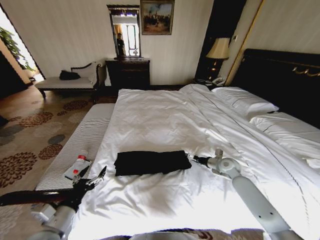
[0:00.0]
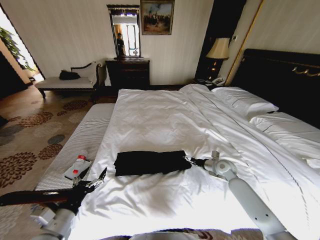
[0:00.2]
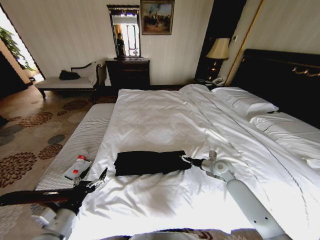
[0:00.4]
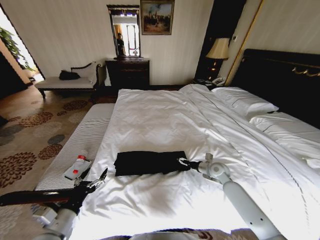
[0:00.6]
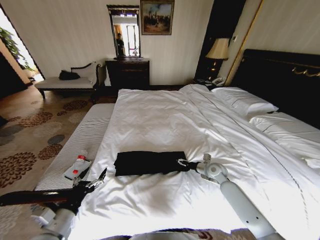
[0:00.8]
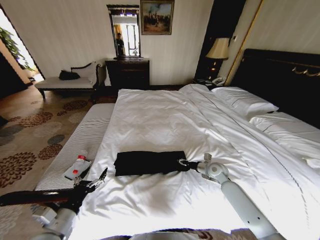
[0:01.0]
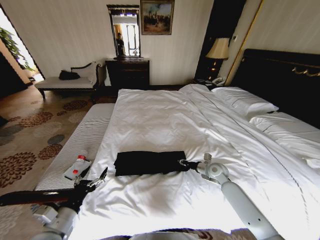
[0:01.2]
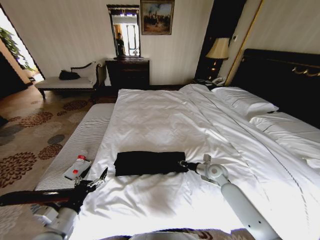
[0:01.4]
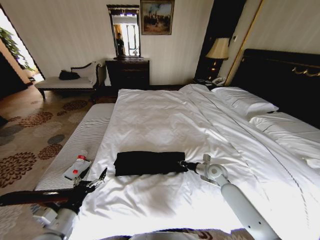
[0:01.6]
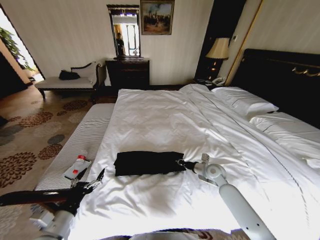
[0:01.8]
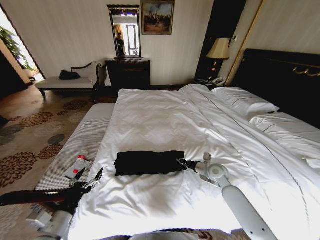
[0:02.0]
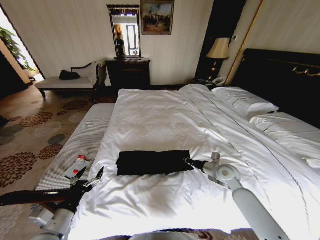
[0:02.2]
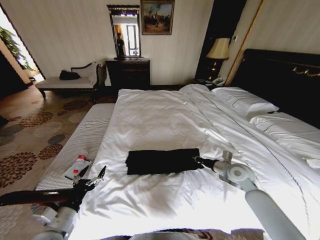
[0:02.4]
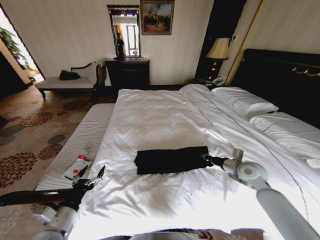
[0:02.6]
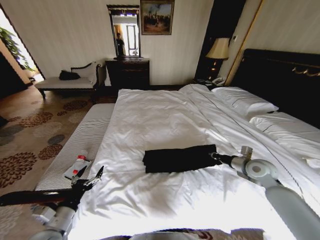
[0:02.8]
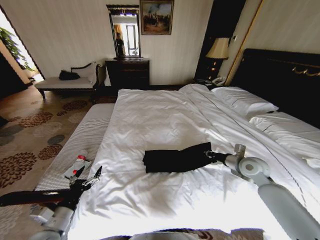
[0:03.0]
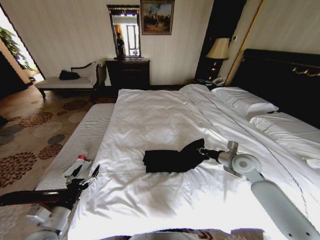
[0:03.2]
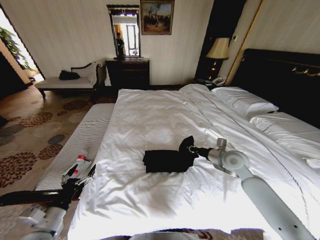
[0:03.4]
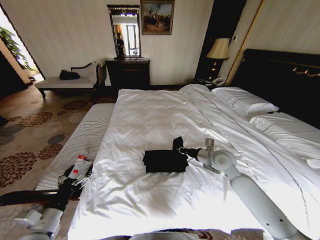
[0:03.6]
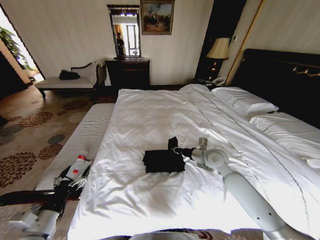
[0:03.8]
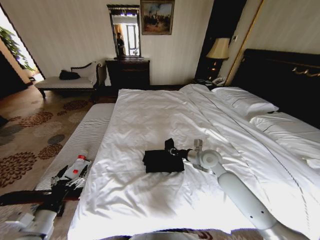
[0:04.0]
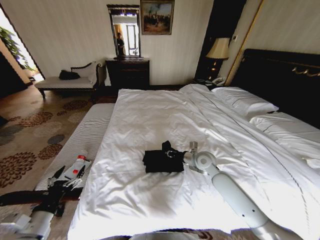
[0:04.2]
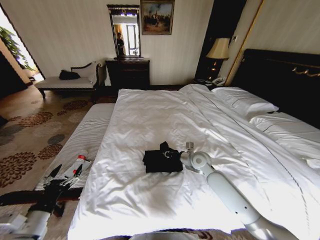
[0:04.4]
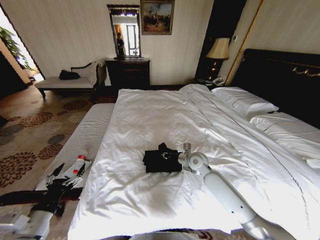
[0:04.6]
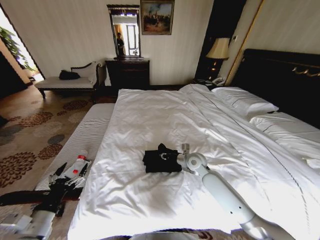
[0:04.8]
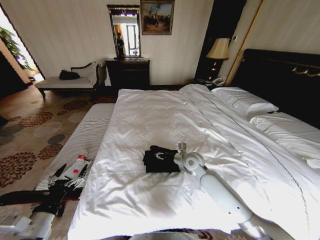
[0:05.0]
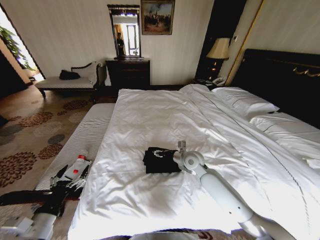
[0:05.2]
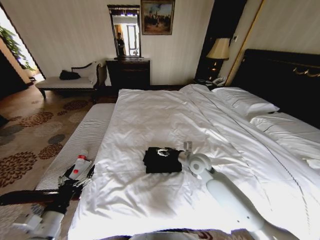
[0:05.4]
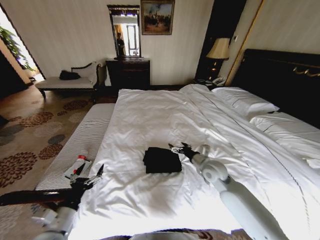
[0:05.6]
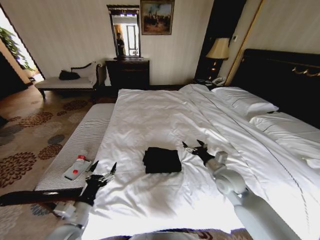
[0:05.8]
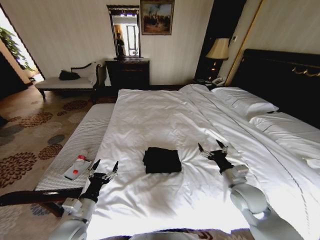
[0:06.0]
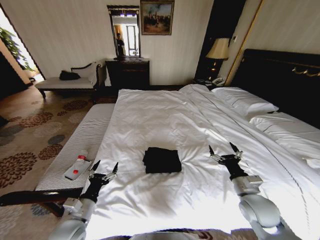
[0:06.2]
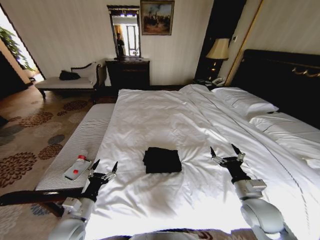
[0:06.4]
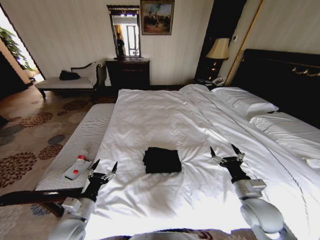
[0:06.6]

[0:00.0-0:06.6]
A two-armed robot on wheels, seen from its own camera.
Task of the whole recording: Fold the clothes on the bed.
0:00.0 to 0:01.6: The right gripper shifts some 5 cm to the left, and closes its fingers.
0:01.6 to 0:03.2: The right gripper is displaced upward and to the right by roughly 15 cm.
0:03.2 to 0:05.0: The right gripper moves to the left, some 20 cm.
0:05.0 to 0:06.6: The right gripper is displaced backward and to the right by roughly 25 cm, and opens up; the left gripper travels to the right and forward by roughly 10 cm.

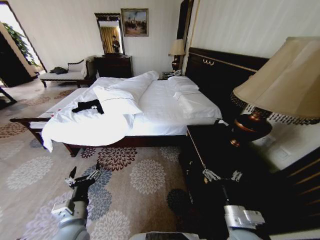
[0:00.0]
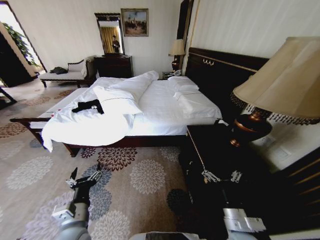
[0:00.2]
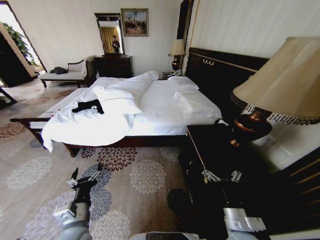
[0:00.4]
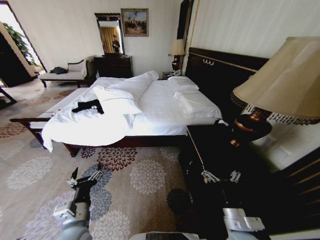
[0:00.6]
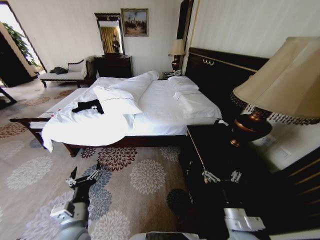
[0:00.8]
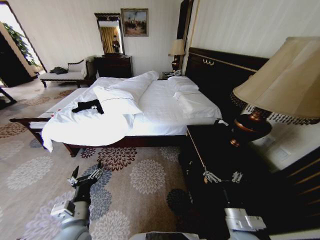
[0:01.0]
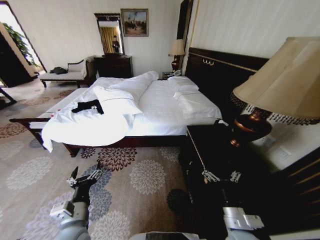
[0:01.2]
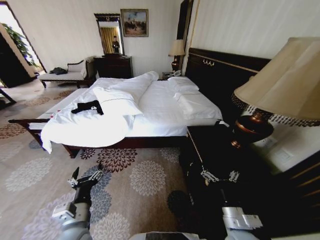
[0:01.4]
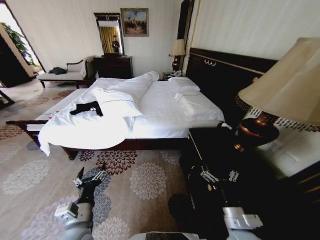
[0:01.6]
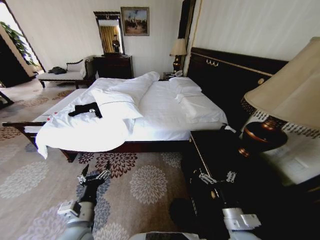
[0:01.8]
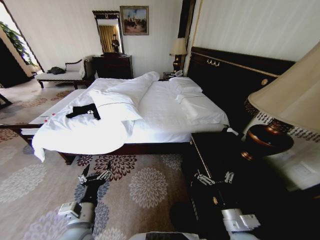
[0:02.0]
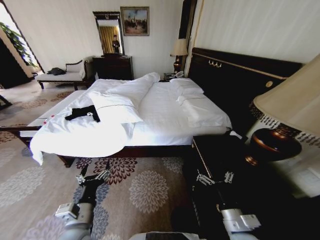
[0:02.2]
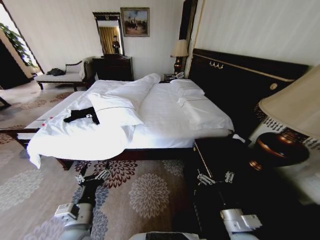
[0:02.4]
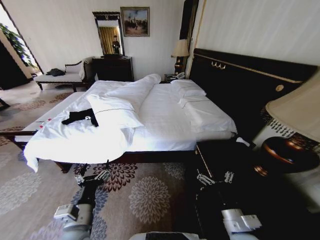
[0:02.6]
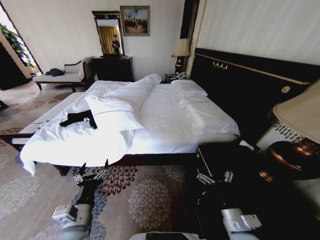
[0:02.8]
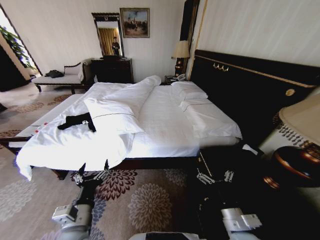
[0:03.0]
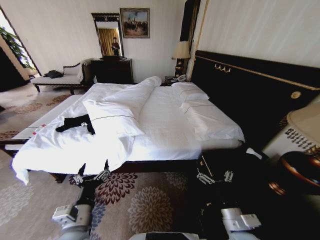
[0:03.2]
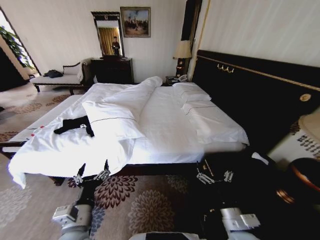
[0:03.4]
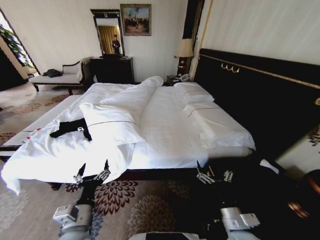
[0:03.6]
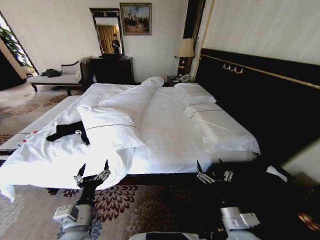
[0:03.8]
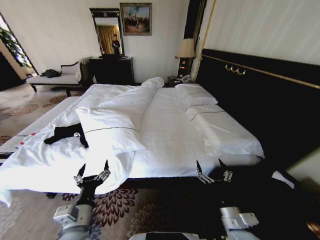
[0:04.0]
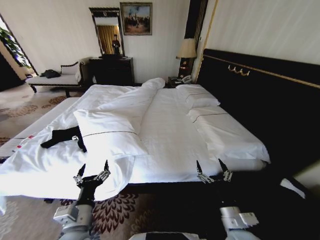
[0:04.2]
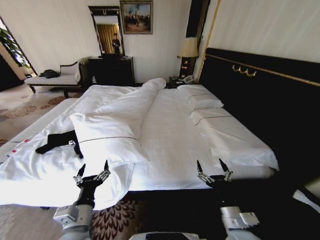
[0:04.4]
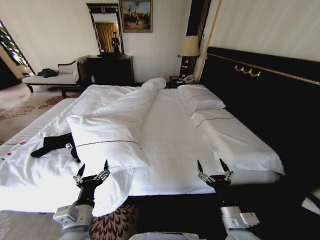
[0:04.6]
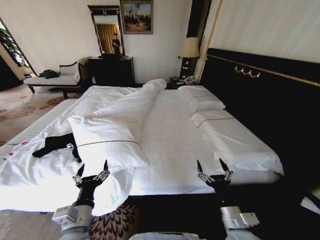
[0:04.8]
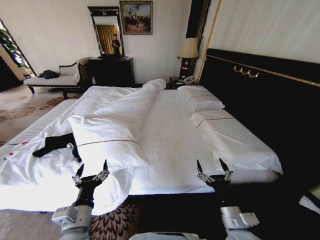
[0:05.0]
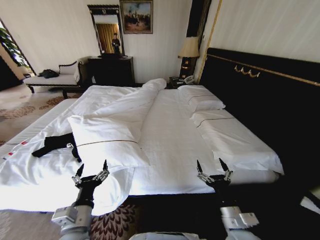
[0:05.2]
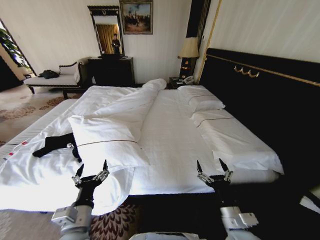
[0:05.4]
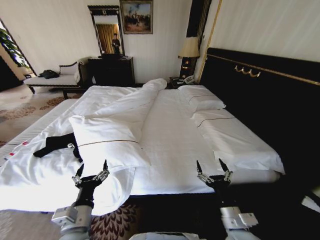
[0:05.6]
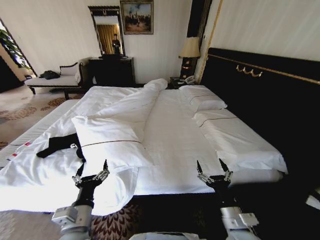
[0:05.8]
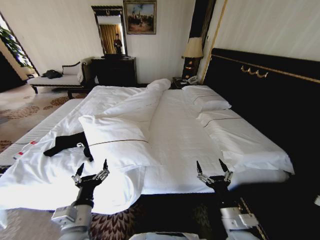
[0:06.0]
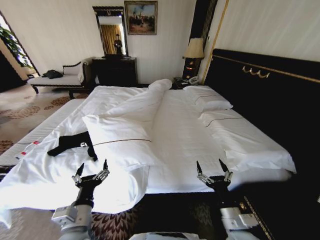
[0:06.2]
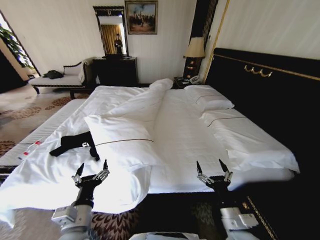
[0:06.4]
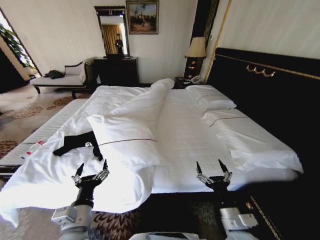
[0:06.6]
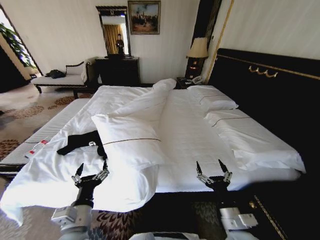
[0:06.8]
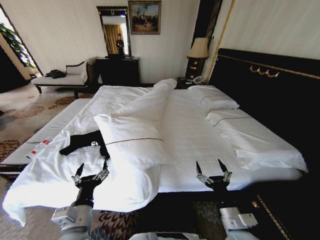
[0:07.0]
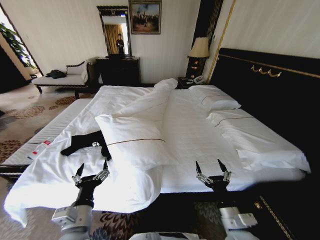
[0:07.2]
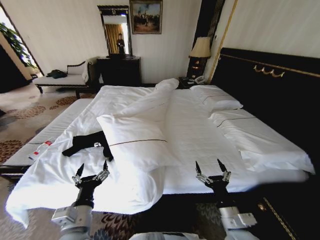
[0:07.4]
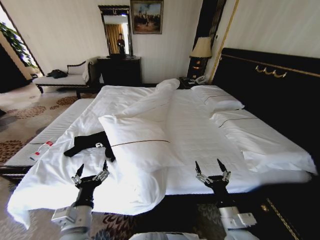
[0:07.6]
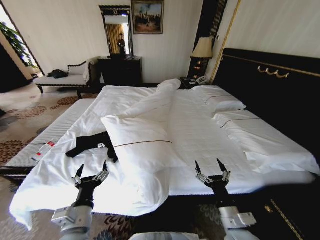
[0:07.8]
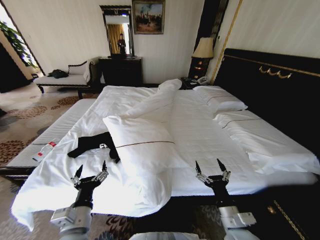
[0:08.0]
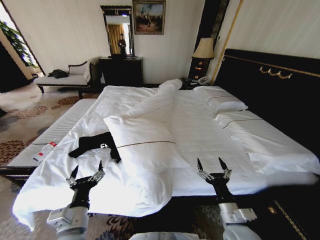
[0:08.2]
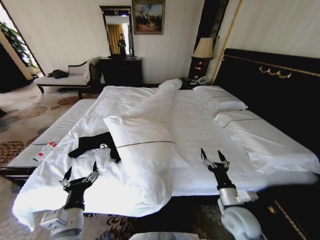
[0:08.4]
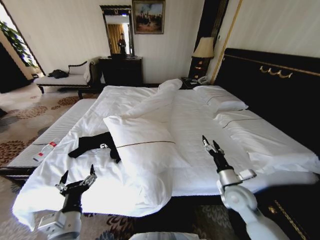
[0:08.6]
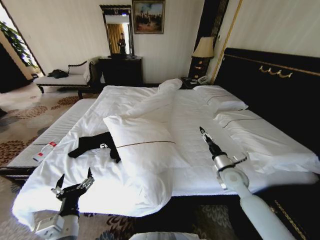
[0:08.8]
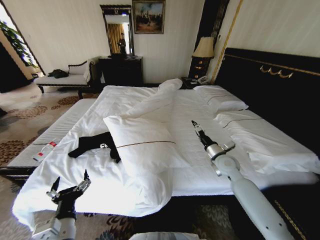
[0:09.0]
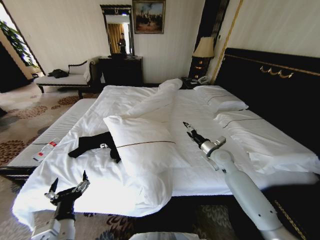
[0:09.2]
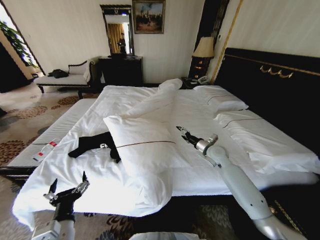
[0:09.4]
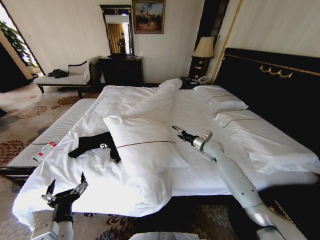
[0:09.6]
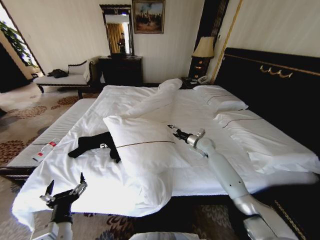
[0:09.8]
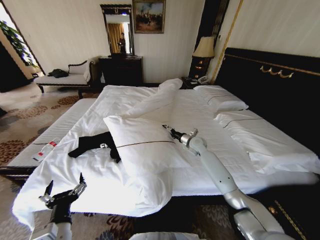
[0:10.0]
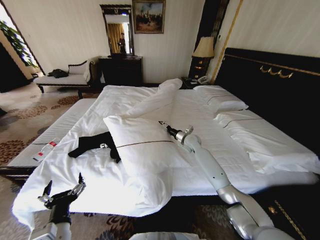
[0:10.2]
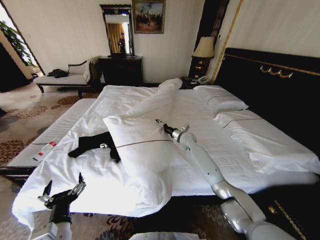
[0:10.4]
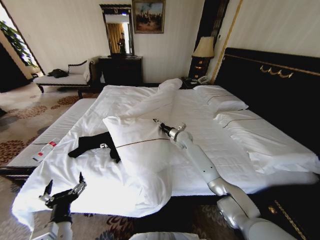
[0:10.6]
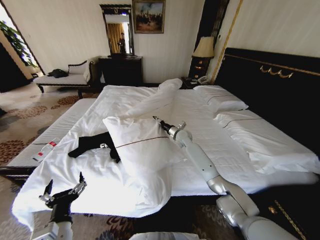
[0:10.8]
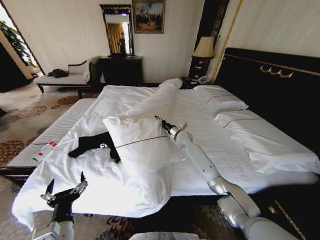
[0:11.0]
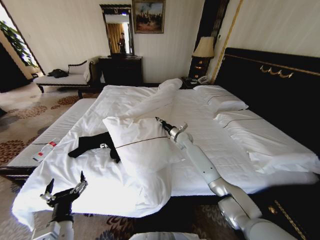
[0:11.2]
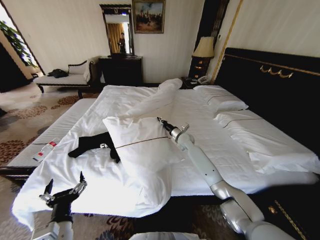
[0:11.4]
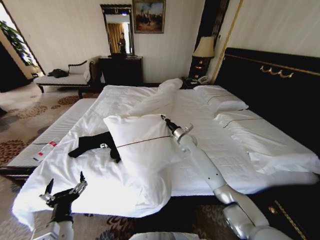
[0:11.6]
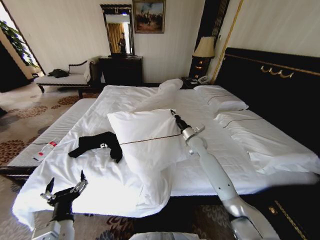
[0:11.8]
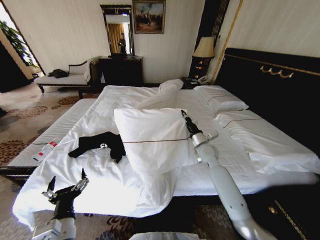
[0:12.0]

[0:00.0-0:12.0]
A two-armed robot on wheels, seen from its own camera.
Task of the whole recording: Fold the clothes on the bed.
0:07.6 to 0:09.0: The right gripper is displaced forward by roughly 25 cm.
0:09.0 to 0:10.4: The right gripper is displaced forward and to the left by about 20 cm.
0:10.4 to 0:12.0: The right gripper heads backward and to the right, covering approximately 15 cm, and closes its fingers.

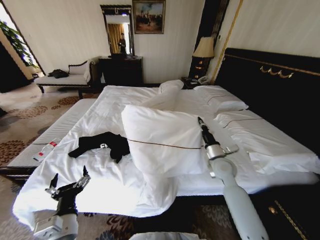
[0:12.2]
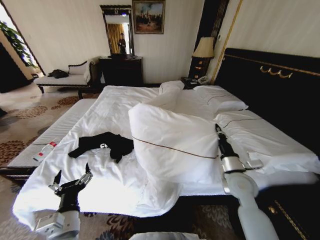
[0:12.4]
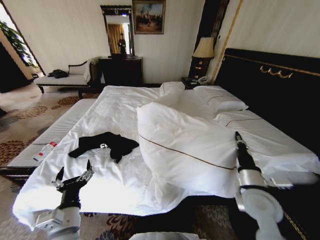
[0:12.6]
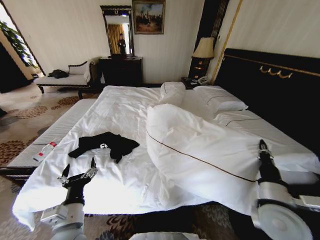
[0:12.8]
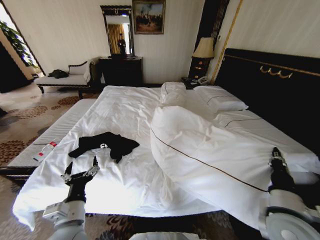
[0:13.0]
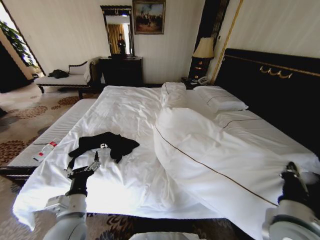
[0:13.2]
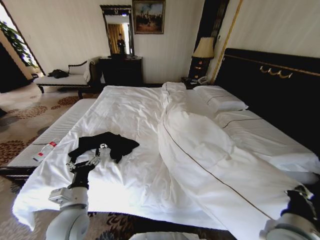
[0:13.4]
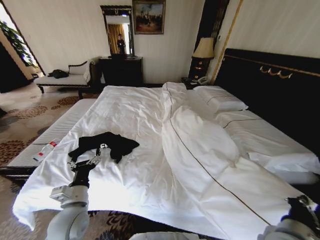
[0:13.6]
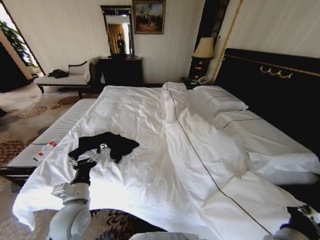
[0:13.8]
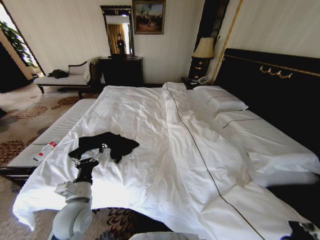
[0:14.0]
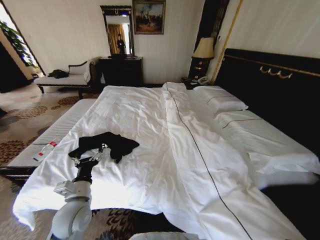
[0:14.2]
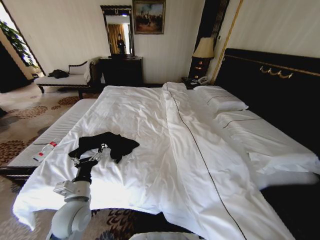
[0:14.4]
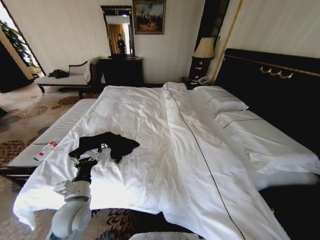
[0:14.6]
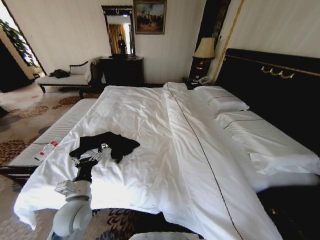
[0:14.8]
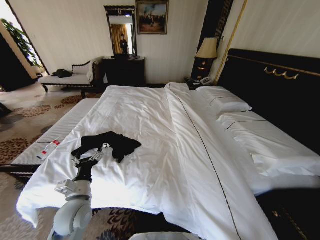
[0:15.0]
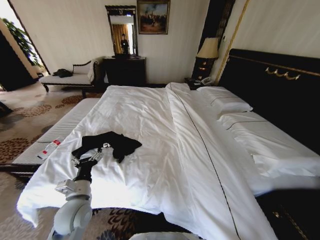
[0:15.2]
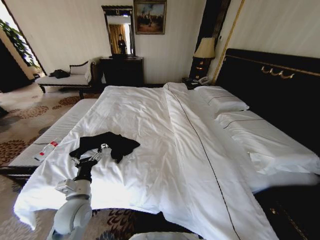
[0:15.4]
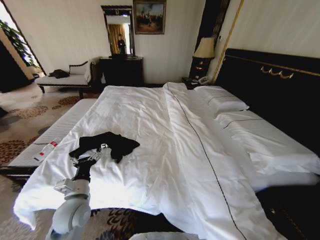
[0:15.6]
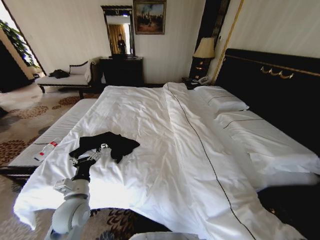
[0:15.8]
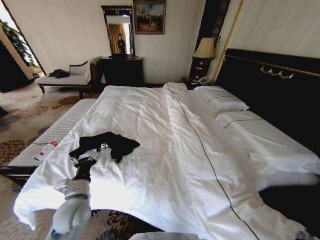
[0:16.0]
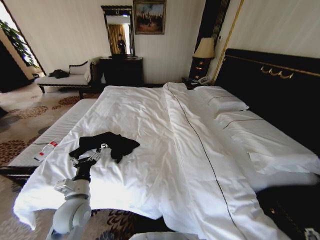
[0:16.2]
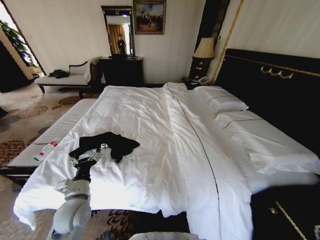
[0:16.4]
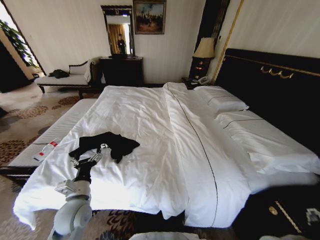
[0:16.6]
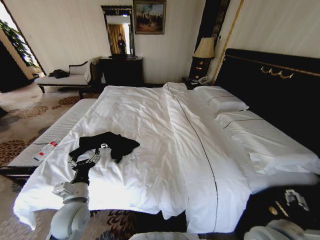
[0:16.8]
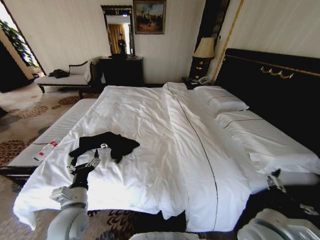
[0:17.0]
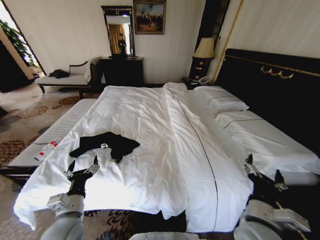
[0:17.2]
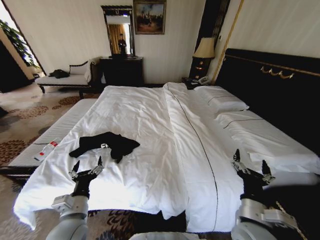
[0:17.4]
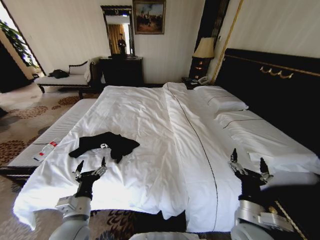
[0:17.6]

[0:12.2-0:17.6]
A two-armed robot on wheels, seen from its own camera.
Task of the whole recording: Fold the clothes on the bed.
0:12.2 to 0:13.6: The right gripper is displaced backward by some 25 cm. Meanwhile the left gripper goes roughly 10 cm forward.
0:13.6 to 0:15.0: The right gripper heads downward, covering approximately 30 cm.
0:15.0 to 0:16.2: The right gripper moves upward, some 20 cm, and opens its fingers.
0:16.2 to 0:17.6: The left gripper shifts about 5 cm backward, while the right gripper shifts some 5 cm forward.
